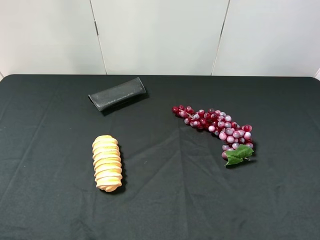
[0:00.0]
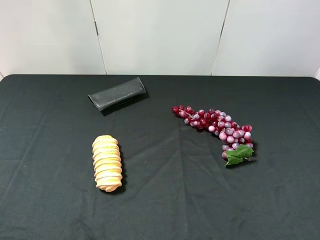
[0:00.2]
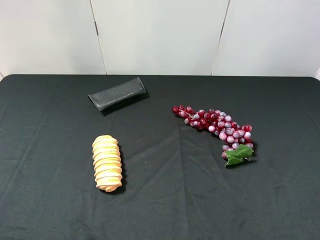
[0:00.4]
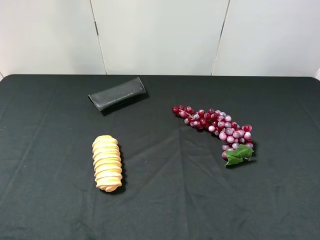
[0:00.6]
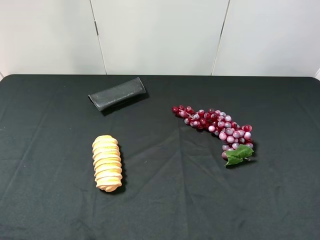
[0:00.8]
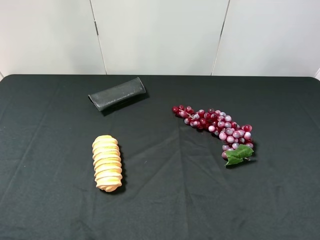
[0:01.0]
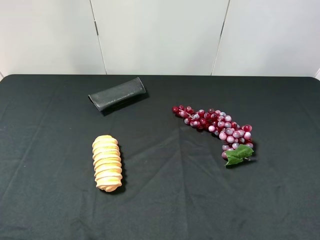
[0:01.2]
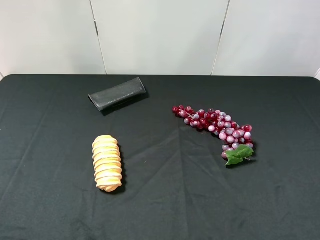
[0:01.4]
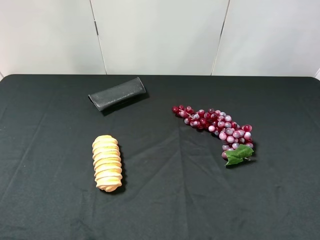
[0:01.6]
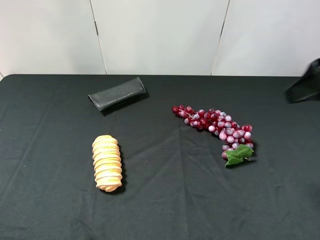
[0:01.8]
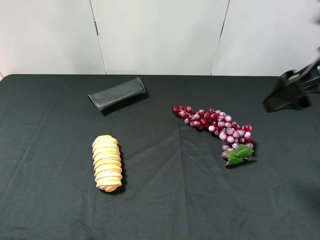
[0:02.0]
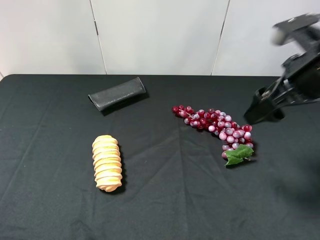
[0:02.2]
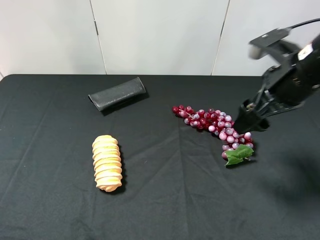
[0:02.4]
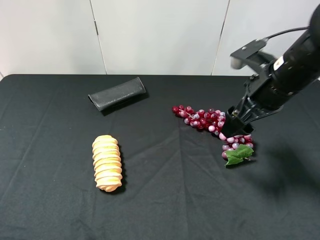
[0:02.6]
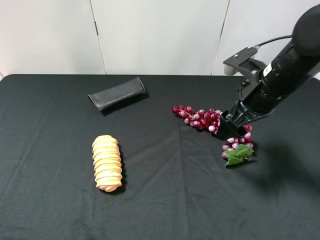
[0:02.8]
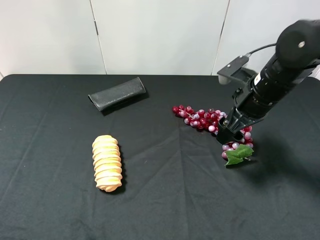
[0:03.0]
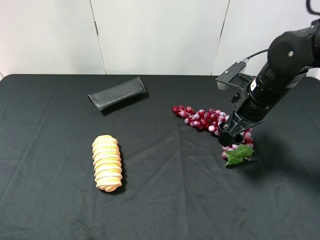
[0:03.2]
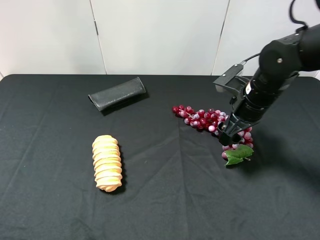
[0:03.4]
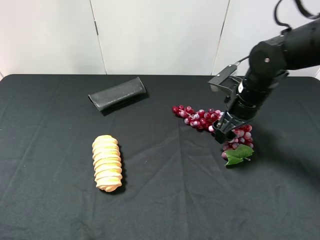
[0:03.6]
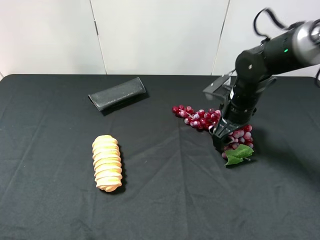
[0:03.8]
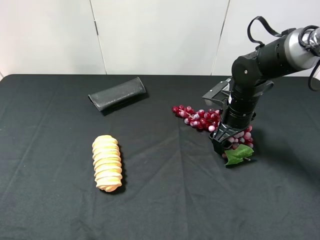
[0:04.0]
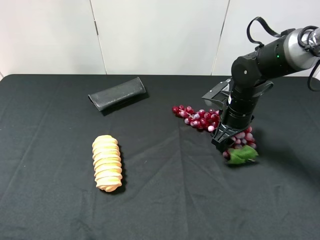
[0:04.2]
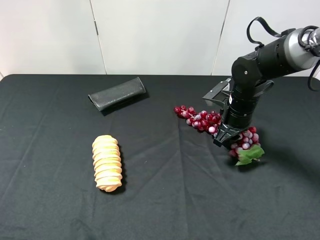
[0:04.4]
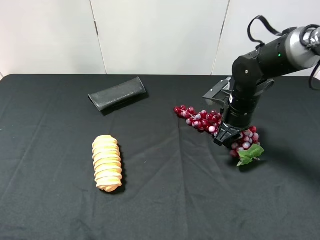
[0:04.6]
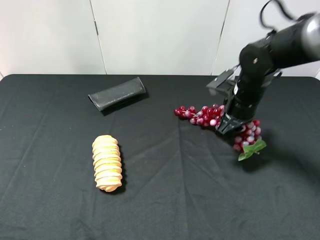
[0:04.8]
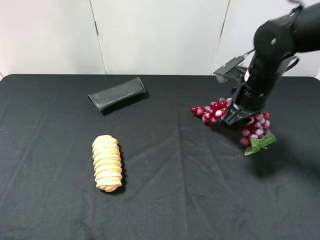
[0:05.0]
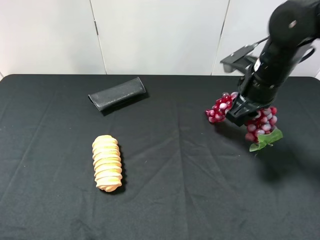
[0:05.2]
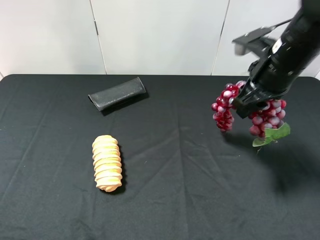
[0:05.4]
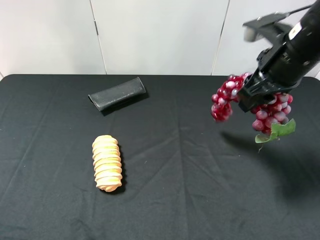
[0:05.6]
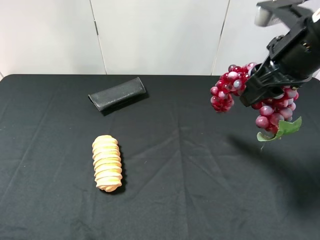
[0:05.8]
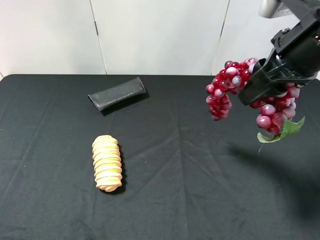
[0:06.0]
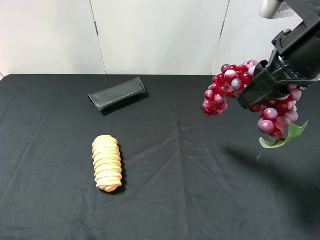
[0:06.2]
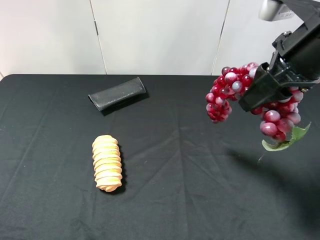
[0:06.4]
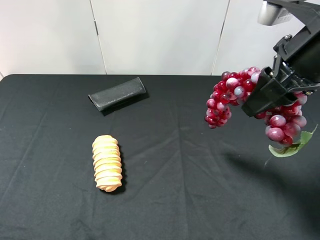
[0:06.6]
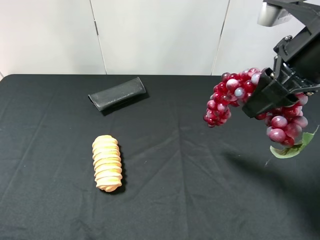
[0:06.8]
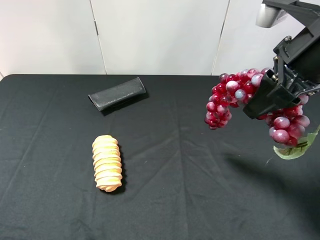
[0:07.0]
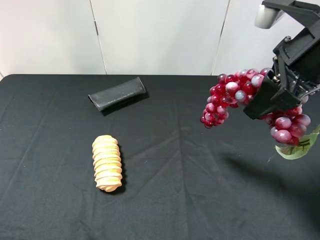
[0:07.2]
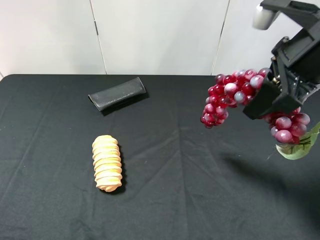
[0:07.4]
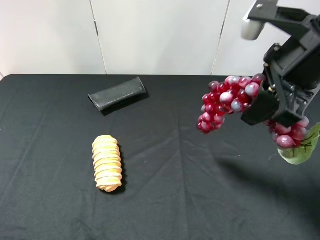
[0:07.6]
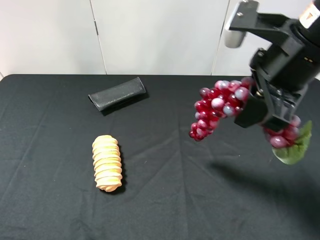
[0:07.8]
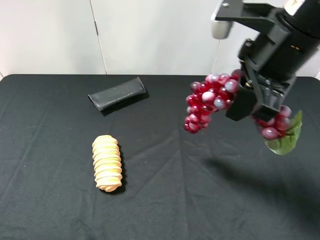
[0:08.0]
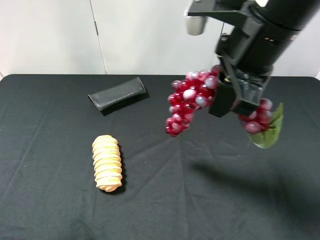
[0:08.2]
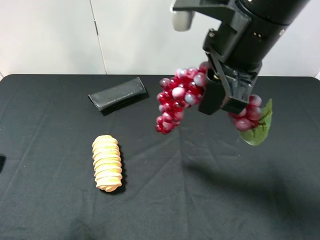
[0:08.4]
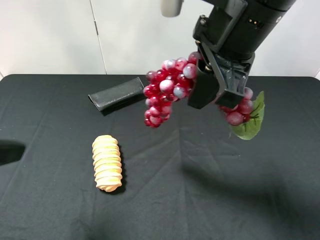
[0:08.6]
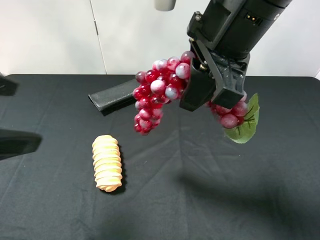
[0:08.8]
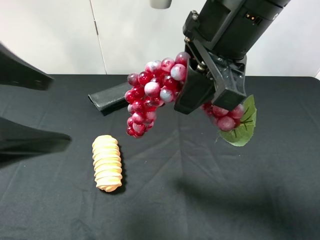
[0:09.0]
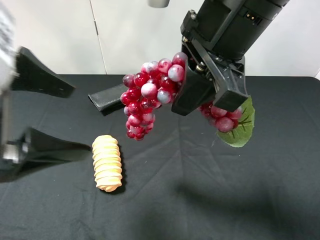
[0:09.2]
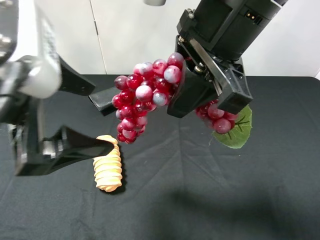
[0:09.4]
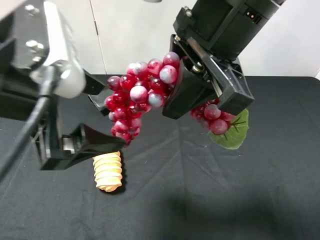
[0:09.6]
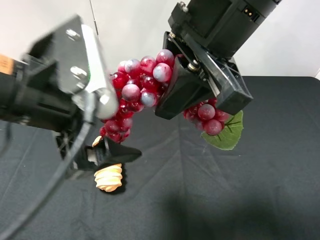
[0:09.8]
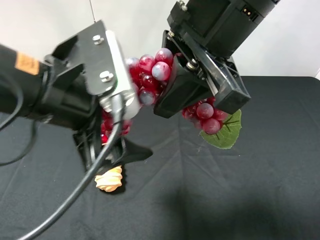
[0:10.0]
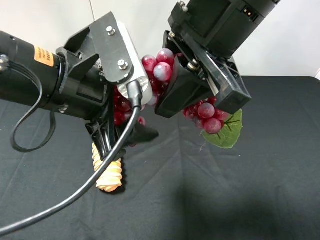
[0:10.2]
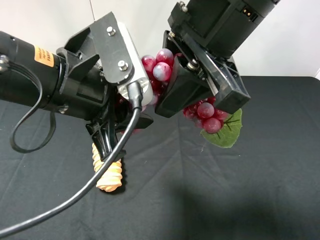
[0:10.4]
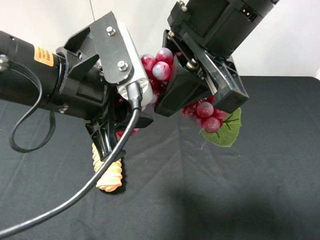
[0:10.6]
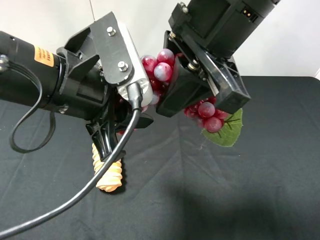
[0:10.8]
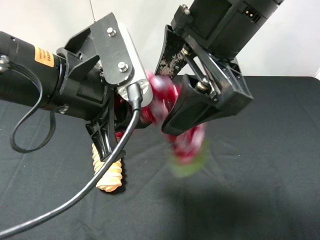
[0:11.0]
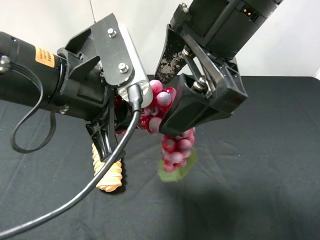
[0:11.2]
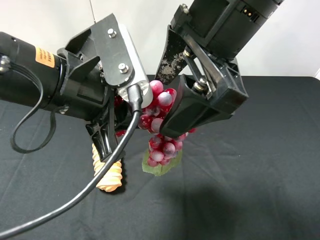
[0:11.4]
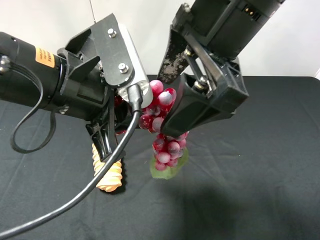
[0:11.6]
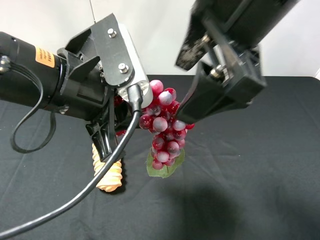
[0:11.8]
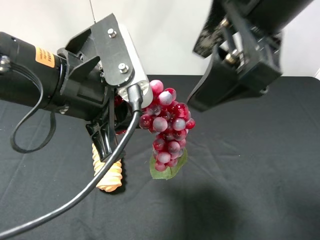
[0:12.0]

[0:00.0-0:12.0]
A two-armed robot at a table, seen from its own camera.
Task of the whole recording: use the right gripper to pick up the item and transfer it from the right gripper to the left gripper.
Step, 0:00.0 to 0:04.6: Use the right gripper to grab the grape on the right side of the table.
Step, 0:04.8 to 0:11.6: Pass the grape to the left gripper.
0:01.6 to 0:03.0: The right gripper moves downward, forward and to the left, some 20 cm.
0:03.0 to 0:04.4: The right gripper travels downward by roughly 5 cm, and closes up.
0:04.4 to 0:06.0: The right gripper shifts approximately 25 cm upward and backward.
0:07.6 to 0:09.0: The left gripper moves forward and to the right, some 15 cm. Meanwhile the right gripper heads to the left, covering about 10 cm.
0:09.0 to 0:10.4: The left gripper goes about 10 cm to the right, and closes its fingers.
0:10.4 to 0:12.0: The right gripper shifts by some 5 cm, and opens.

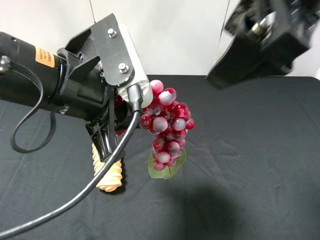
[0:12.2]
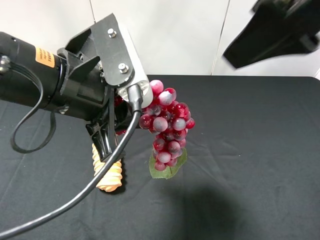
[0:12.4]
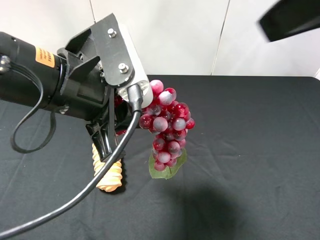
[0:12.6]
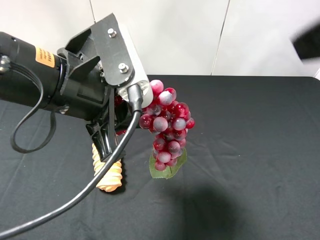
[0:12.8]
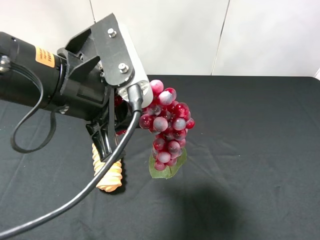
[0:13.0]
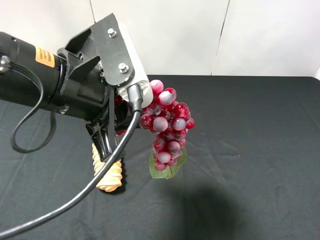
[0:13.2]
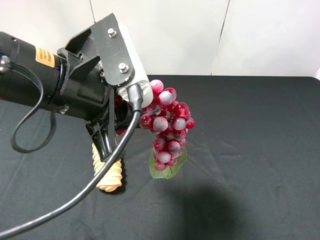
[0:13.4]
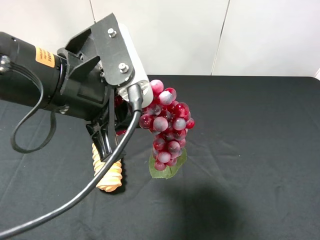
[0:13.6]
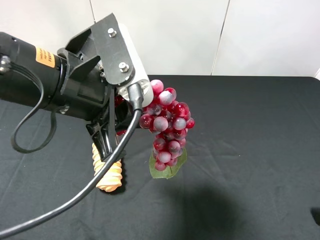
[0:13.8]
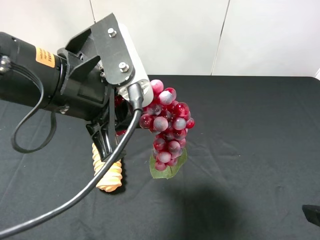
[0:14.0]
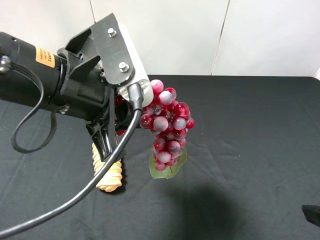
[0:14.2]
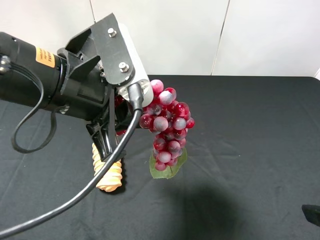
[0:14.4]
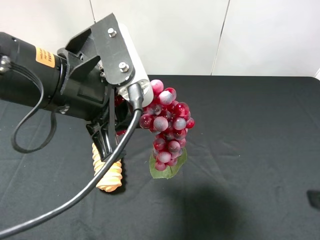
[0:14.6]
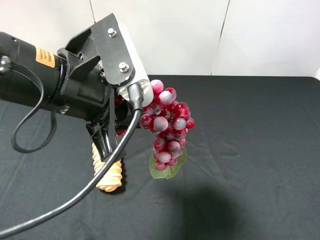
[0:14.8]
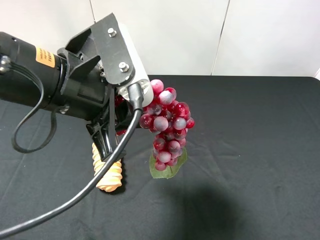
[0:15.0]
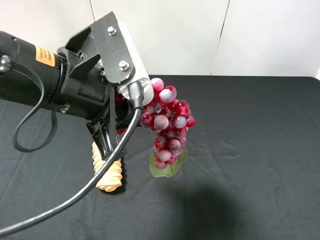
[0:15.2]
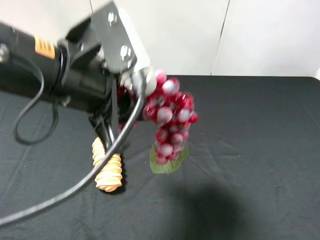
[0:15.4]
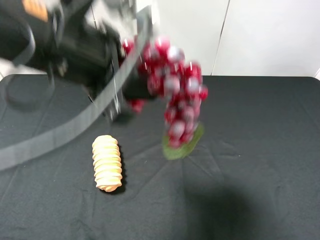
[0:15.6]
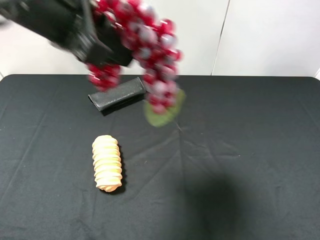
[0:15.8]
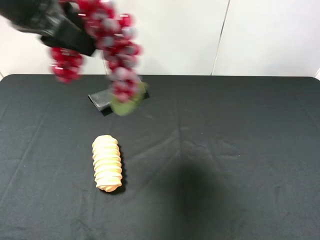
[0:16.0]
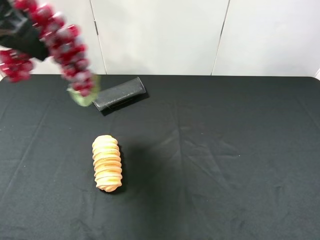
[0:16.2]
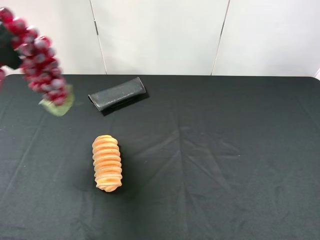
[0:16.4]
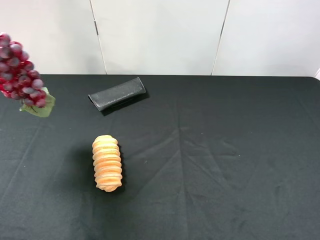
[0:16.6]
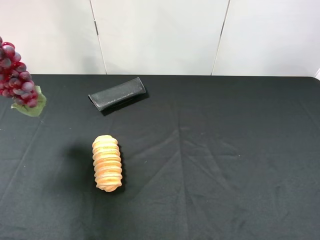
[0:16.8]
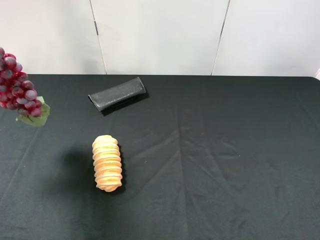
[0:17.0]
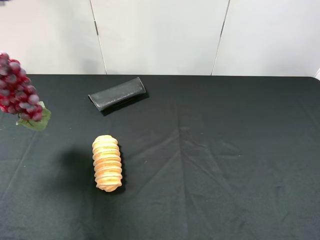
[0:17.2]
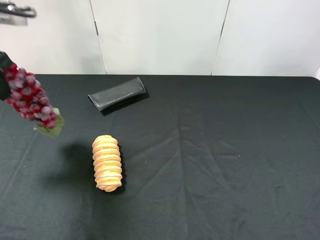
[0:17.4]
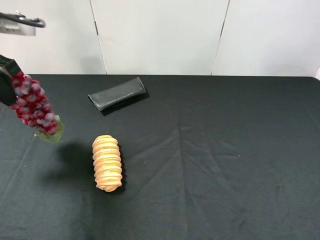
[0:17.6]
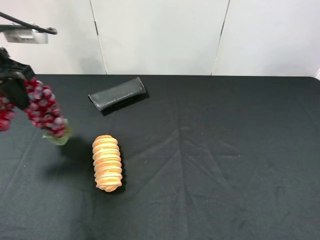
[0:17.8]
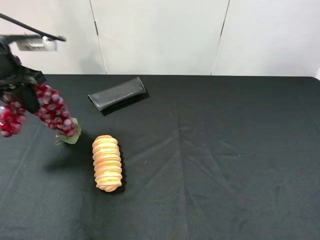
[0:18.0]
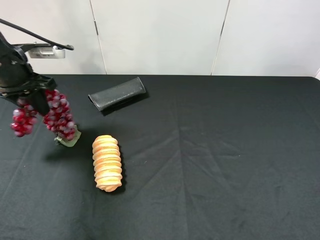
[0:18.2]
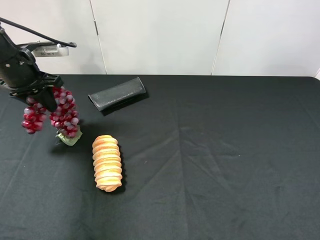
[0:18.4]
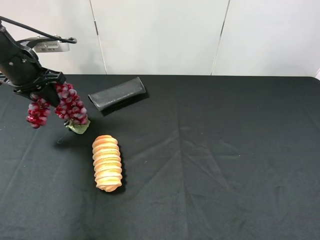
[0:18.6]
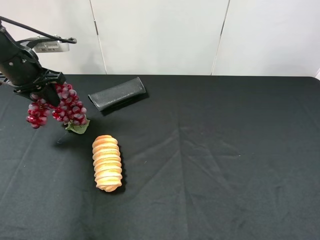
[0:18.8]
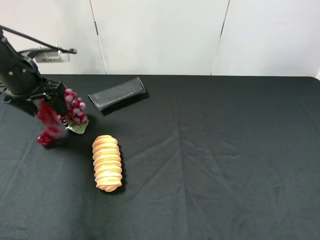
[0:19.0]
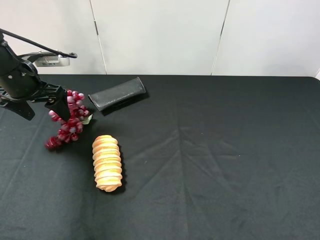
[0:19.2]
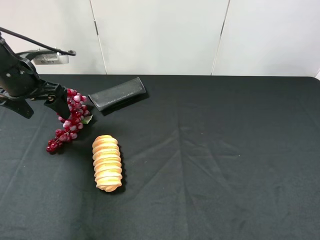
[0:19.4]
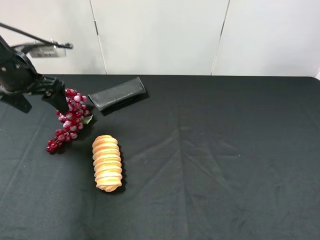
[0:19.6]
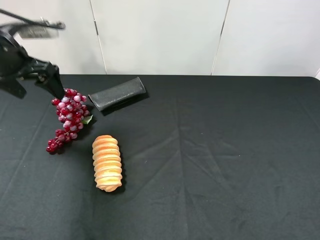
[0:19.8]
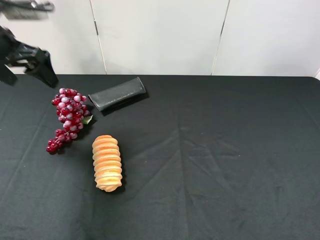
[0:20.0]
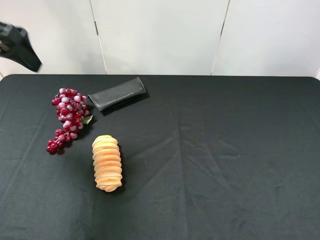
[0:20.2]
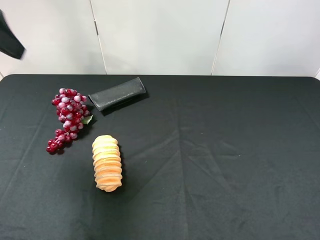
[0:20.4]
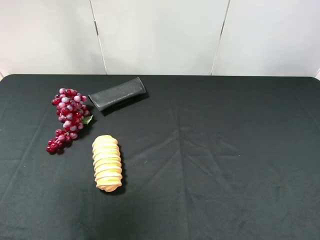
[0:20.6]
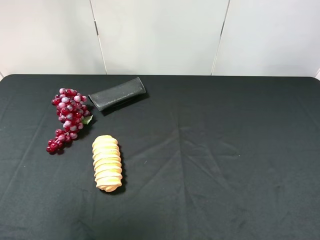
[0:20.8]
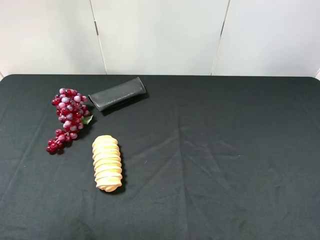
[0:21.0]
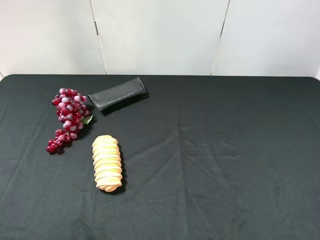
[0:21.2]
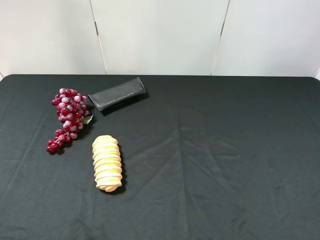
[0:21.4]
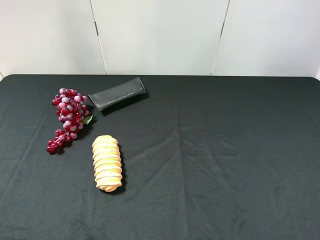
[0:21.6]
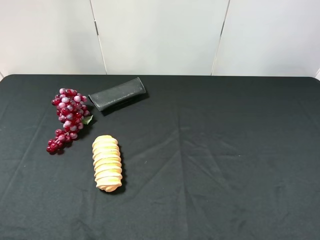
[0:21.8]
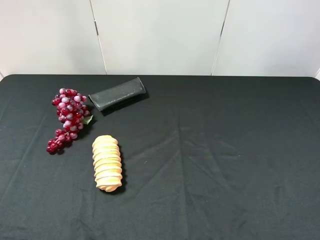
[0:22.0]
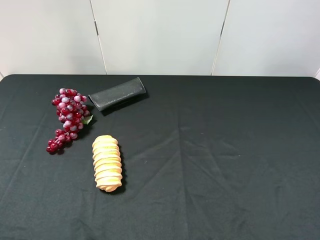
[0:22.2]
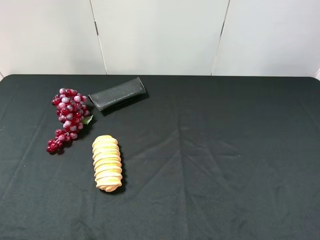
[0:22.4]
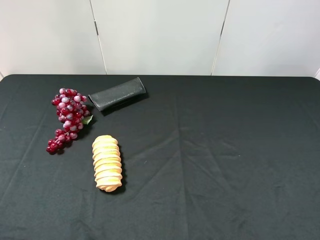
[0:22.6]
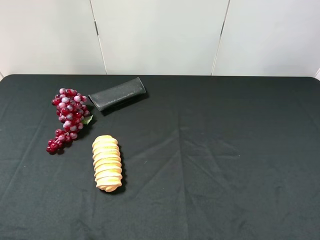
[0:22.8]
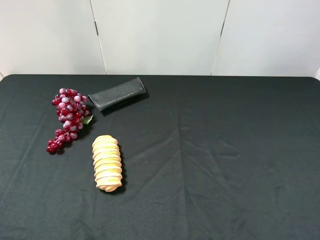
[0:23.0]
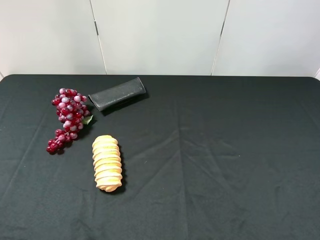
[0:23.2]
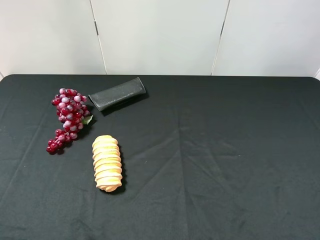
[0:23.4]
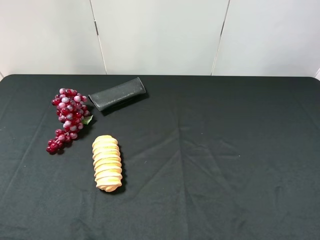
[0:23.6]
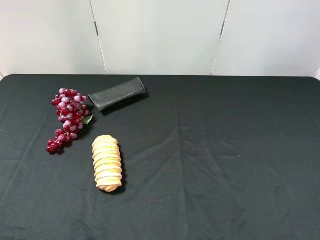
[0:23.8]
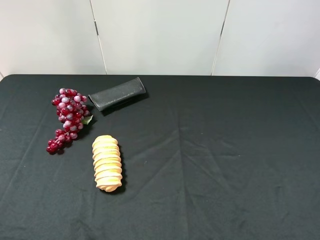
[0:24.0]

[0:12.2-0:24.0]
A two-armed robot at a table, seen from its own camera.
Task of the whole recording: use the right gripper to pick up the item and transfer it from the right gripper to the left gripper.
Step, 0:12.2 to 0:19.2: The left gripper places grape on the left side of the table.
0:12.2 to 0:13.6: The right gripper is displaced to the right, backward and downward by some 25 cm.
0:15.2 to 0:16.6: The left gripper is displaced to the left, upward and forward by roughly 20 cm.
0:16.6 to 0:18.2: The left gripper travels downward and forward by about 15 cm.
0:18.2 to 0:19.6: The left gripper opens.
0:19.6 to 0:21.0: The left gripper is displaced backward and upward by approximately 30 cm.
0:22.6 to 0:24.0: Neither gripper changes place.
